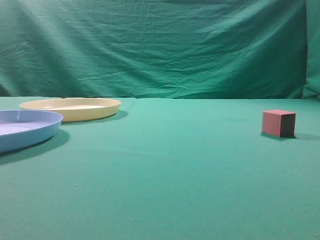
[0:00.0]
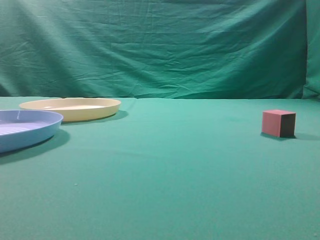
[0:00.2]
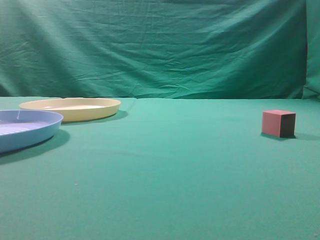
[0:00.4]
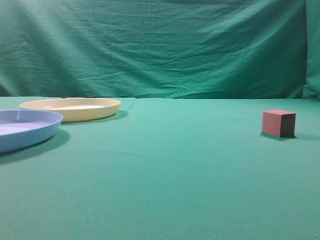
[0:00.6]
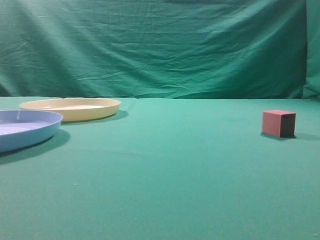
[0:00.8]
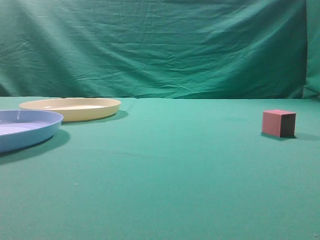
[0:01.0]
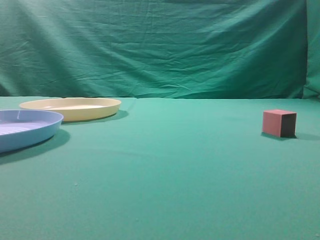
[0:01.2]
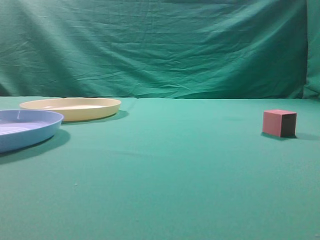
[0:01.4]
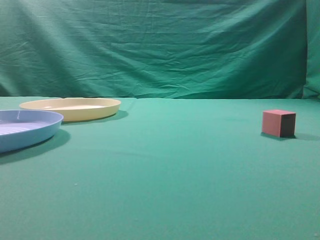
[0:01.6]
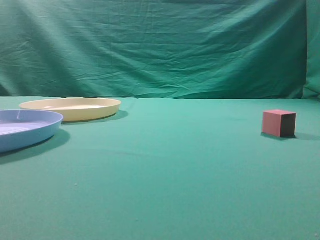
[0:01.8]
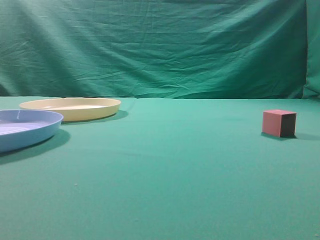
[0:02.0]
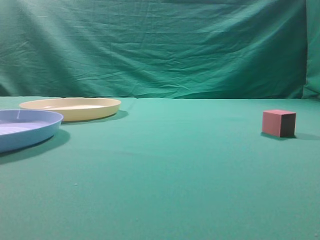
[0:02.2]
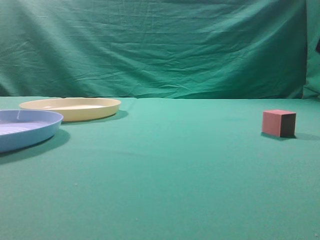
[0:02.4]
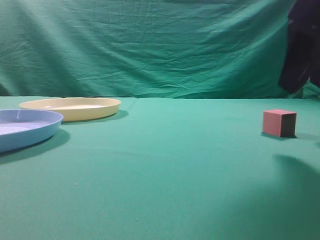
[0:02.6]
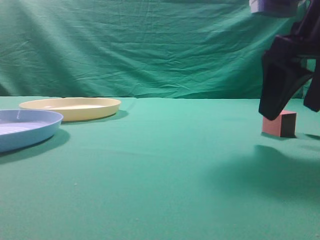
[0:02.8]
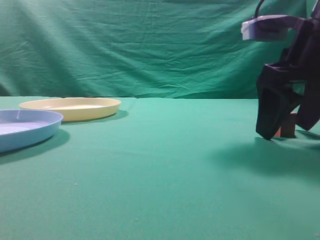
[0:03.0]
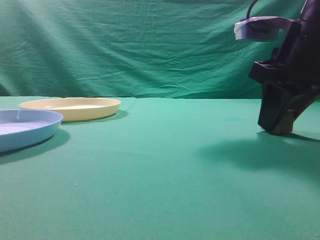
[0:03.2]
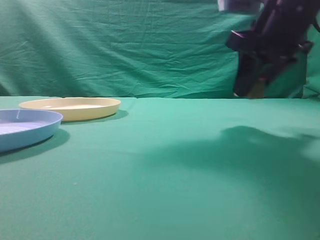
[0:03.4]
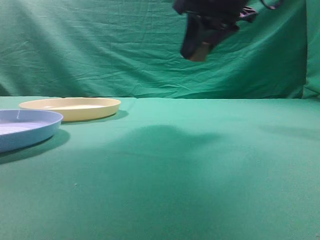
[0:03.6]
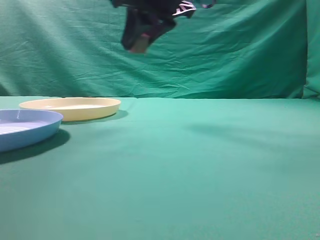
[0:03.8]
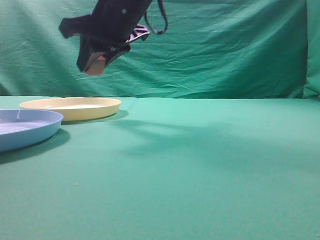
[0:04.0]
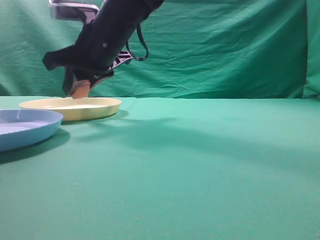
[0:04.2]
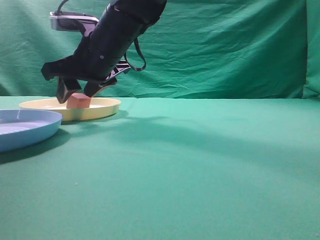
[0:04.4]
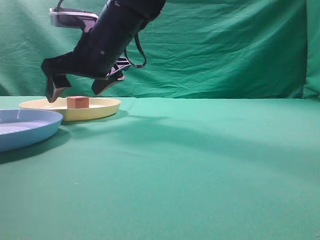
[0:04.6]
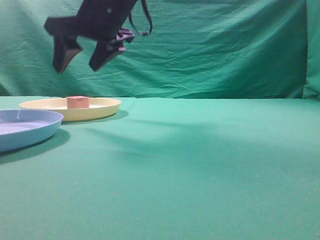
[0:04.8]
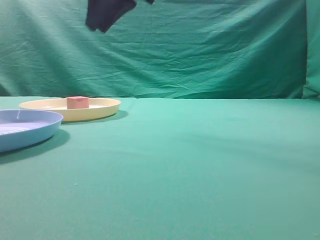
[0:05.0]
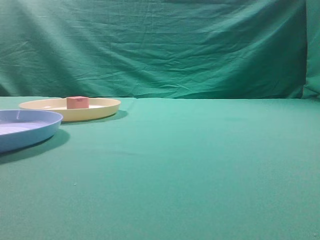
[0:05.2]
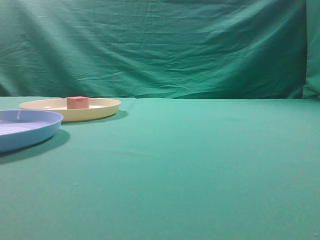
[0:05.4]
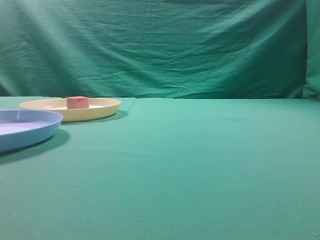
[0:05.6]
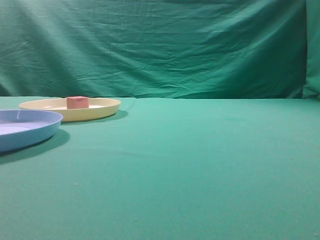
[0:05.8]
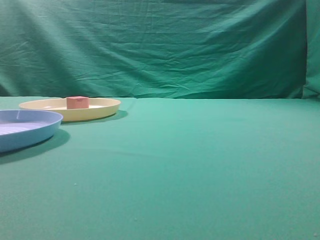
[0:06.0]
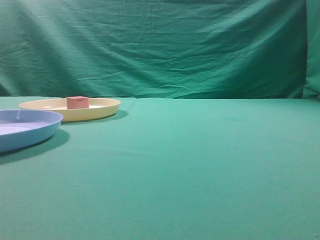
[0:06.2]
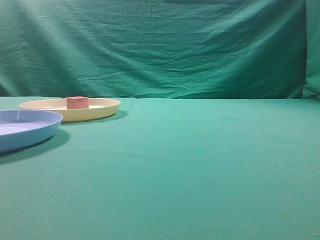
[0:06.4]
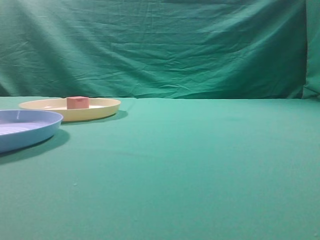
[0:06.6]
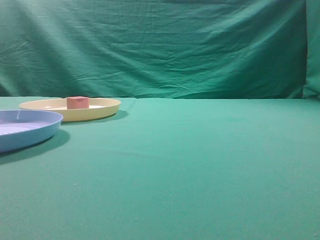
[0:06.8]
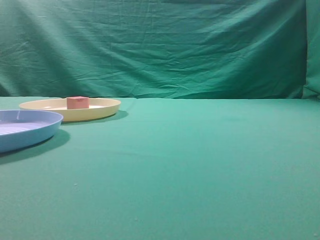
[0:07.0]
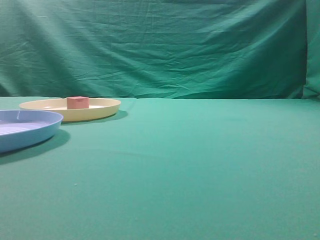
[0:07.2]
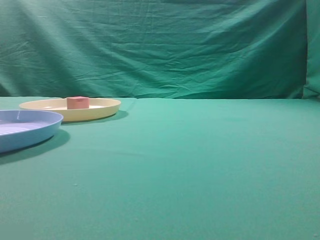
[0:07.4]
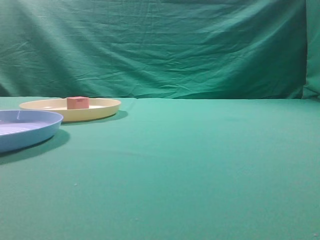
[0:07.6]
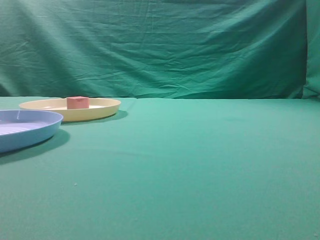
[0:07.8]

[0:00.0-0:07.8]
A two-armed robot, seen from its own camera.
Task of the whole recording: pick up the cube block from the table and put it on the plate.
Step, 0:00.0 to 0:03.2: Grasp the small cube on the table.
Step, 0:03.4 to 0:04.8: Place it into the yellow plate.
0:01.6 to 0:03.2: The right gripper goes roughly 25 cm forward, and opens its fingers.
0:03.2 to 0:04.6: The right gripper moves to the left, approximately 25 cm, and opens its fingers.
0:04.6 to 0:06.2: The right gripper heads to the right, backward and upward, covering roughly 40 cm, and closes.
